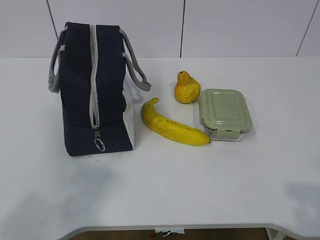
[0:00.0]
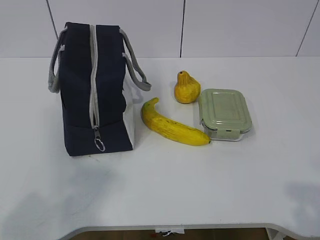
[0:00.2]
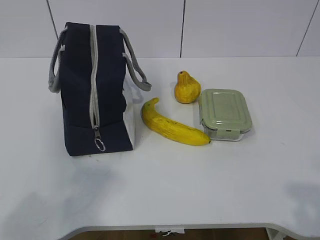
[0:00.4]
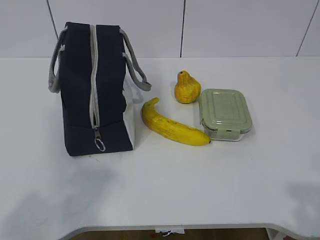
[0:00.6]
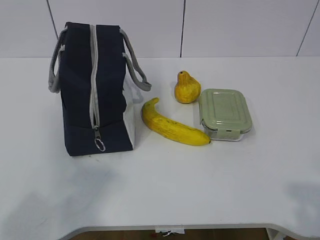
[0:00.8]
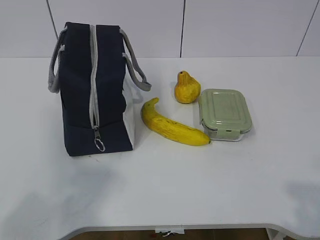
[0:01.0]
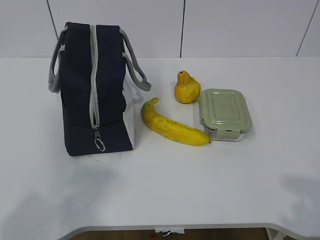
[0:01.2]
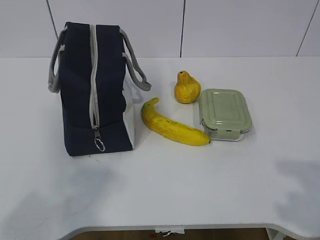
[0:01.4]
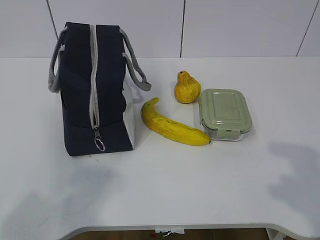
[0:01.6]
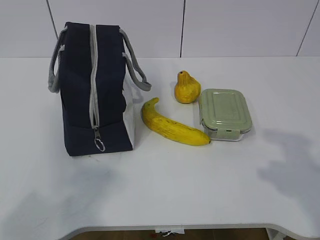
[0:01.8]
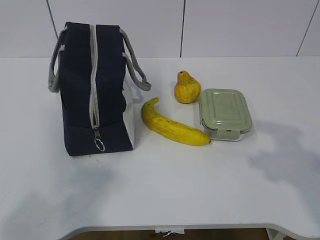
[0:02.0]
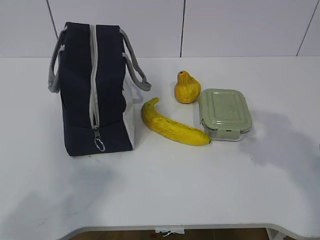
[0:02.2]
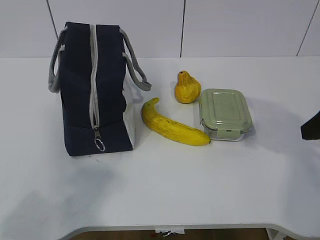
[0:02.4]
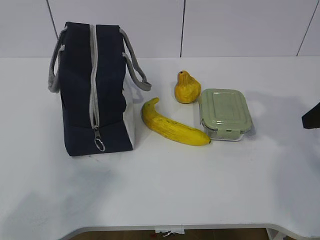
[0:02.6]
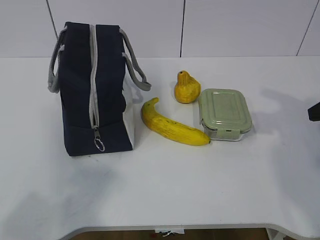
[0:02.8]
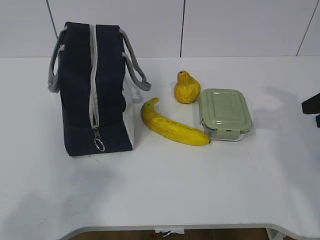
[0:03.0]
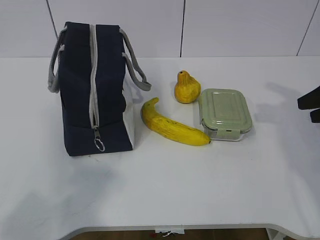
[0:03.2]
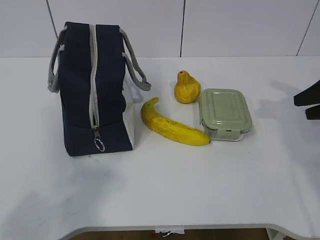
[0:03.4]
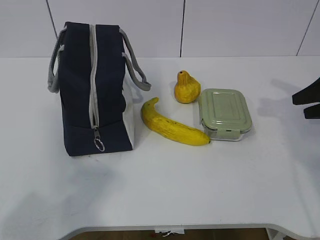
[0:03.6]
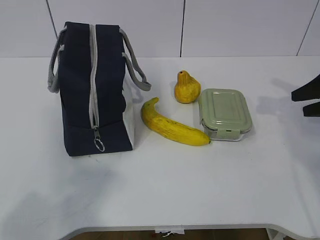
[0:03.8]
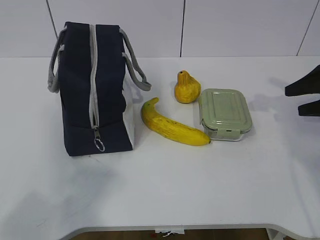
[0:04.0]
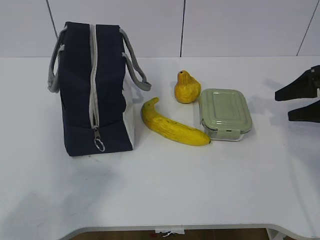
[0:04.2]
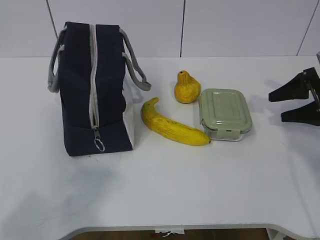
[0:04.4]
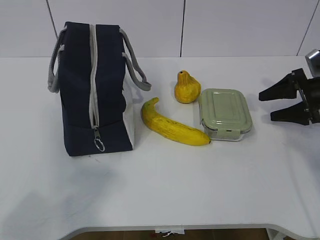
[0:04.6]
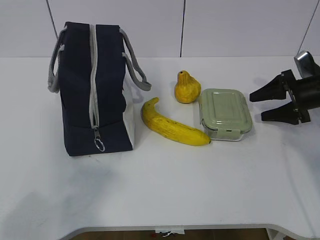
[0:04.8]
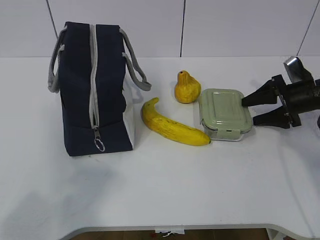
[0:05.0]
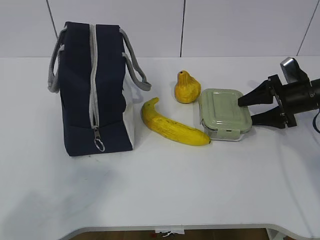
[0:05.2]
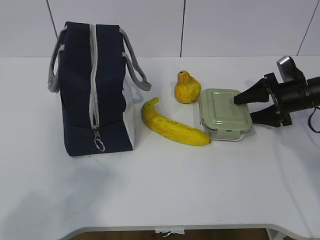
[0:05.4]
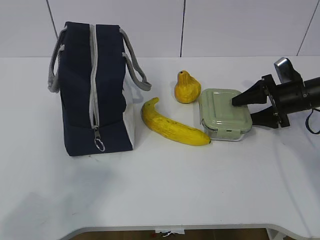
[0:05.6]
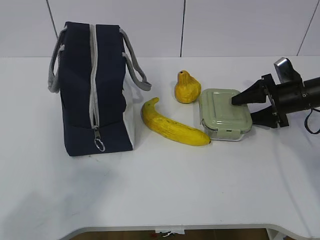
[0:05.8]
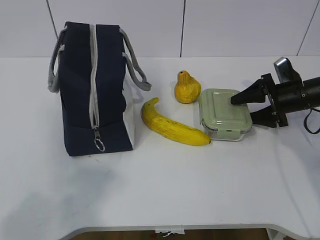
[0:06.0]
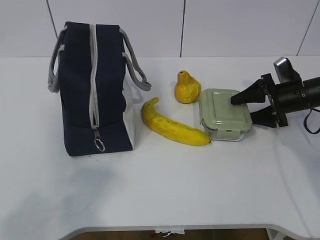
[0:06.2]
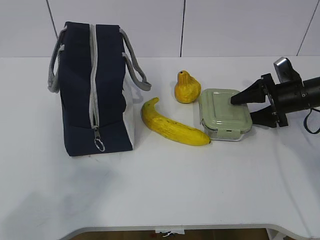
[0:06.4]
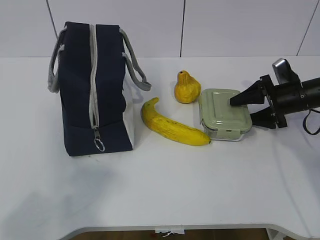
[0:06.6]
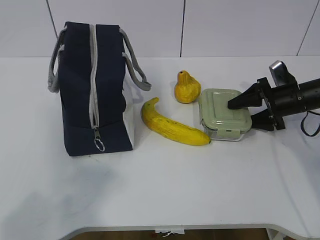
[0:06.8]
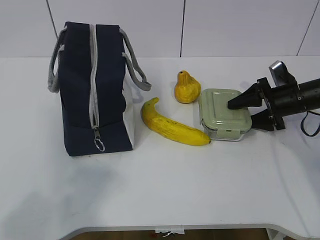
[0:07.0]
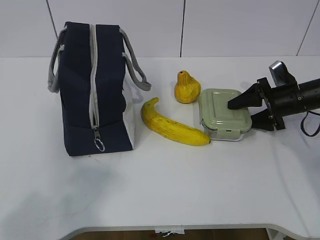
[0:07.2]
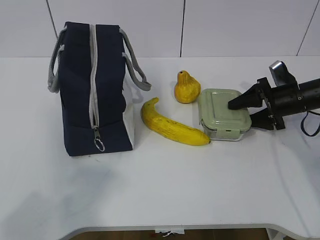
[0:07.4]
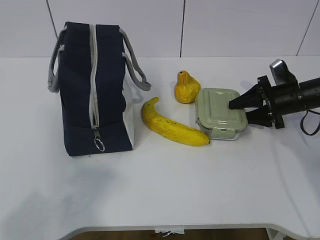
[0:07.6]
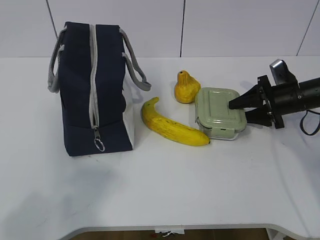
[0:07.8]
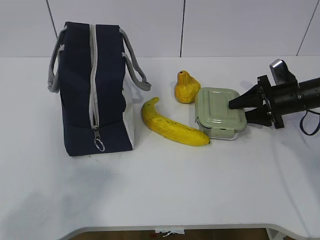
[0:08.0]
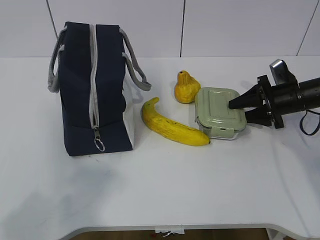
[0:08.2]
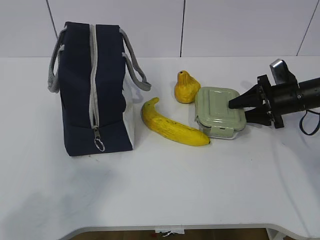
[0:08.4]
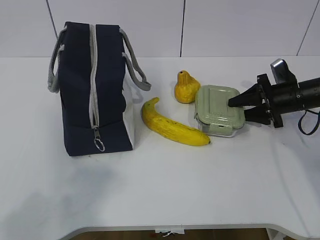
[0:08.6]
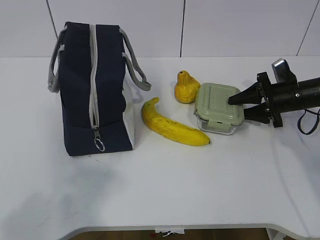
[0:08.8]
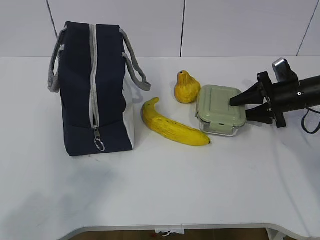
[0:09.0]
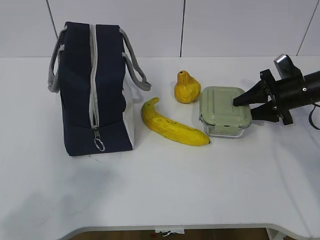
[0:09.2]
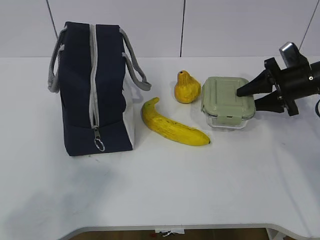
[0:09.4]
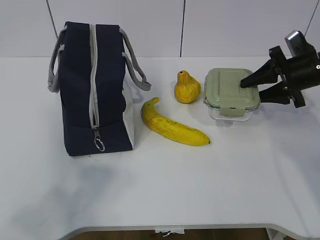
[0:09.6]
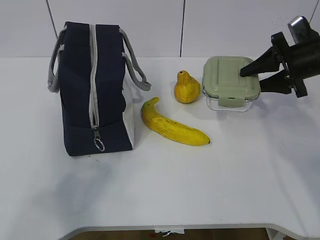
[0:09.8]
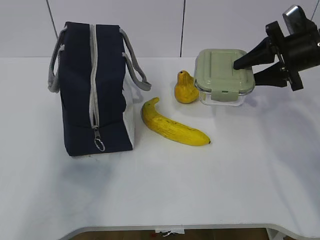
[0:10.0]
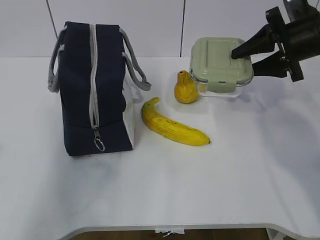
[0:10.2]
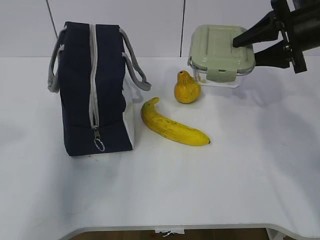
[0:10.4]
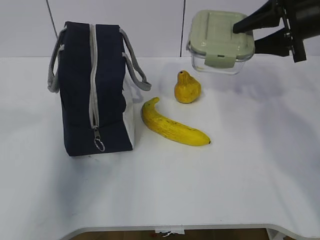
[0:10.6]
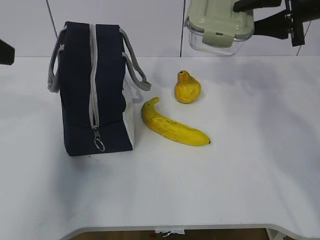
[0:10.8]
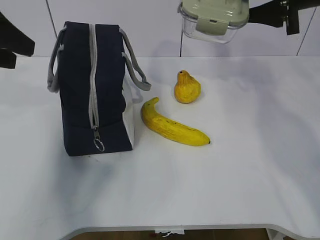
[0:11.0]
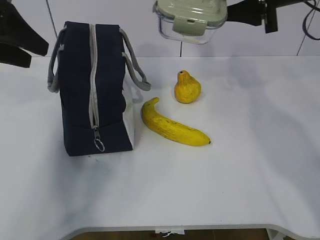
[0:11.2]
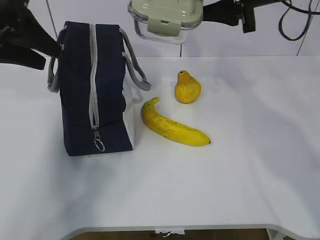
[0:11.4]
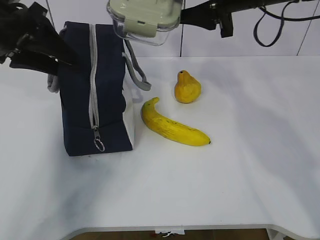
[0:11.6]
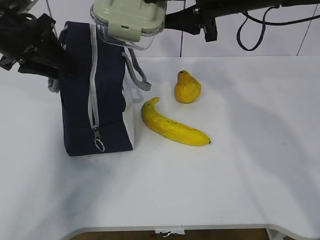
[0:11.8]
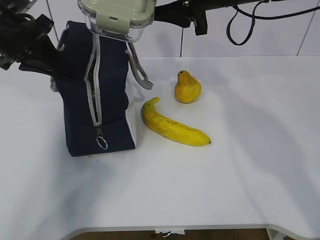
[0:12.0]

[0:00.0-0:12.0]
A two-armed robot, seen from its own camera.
Step, 0:00.0 to 0:06.8: Grab the lunch box with your right hand.
Step, 0:07.2 to 0:10.2: Grab the lunch bag with your left hand.
0:01.6 to 0:03.0: The right gripper travels forward by roughly 25 cm.
0:03.0 to 0:04.4: The right gripper goes approximately 10 cm forward and downward.
0:04.4 to 0:06.0: The right gripper travels to the left by some 5 cm.
0:06.0 to 0:07.6: Both grippers stay put.
0:07.6 to 0:09.0: The grippers make only small movements.
0:09.0 to 0:10.4: The left gripper shifts roughly 15 cm forward and upward. The right gripper is displaced upward by approximately 15 cm.
0:10.4 to 0:12.0: The right gripper heads to the left, covering roughly 15 cm; the left gripper travels forward by approximately 25 cm, and closes up.

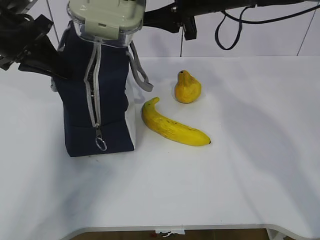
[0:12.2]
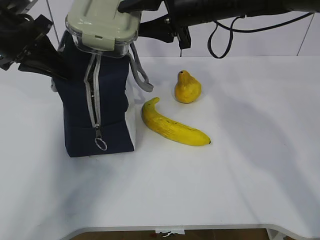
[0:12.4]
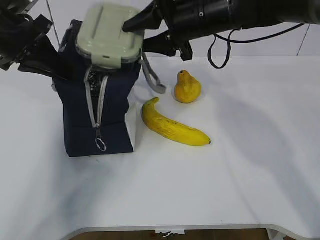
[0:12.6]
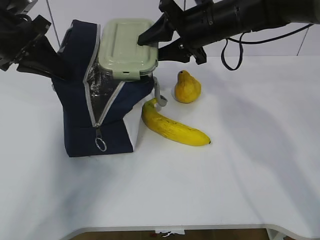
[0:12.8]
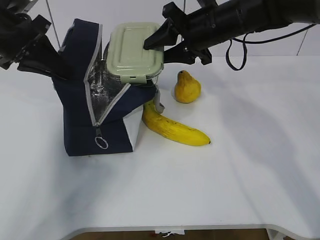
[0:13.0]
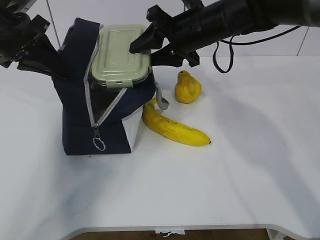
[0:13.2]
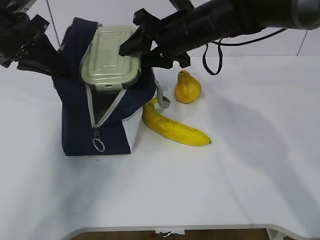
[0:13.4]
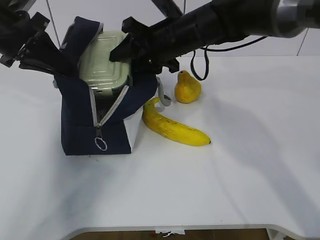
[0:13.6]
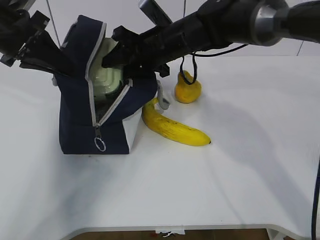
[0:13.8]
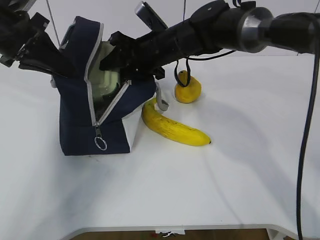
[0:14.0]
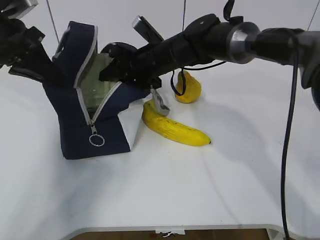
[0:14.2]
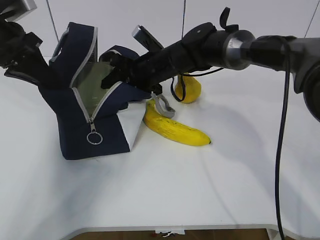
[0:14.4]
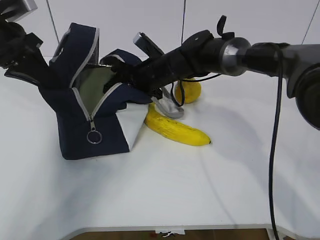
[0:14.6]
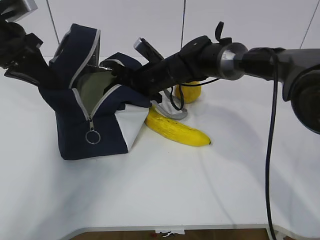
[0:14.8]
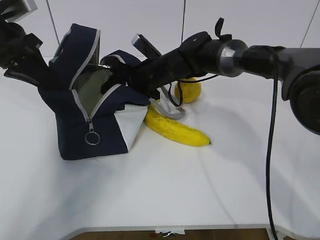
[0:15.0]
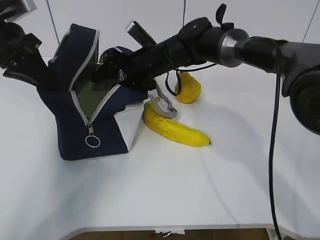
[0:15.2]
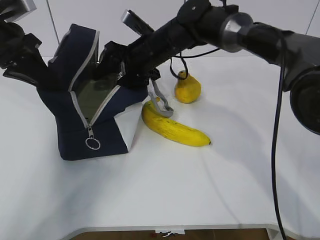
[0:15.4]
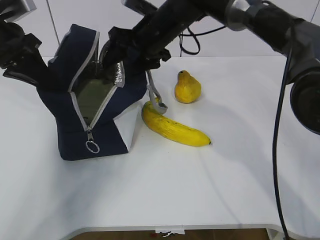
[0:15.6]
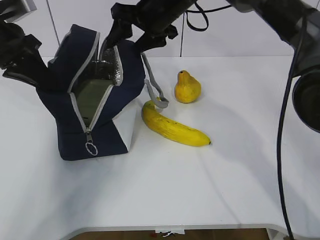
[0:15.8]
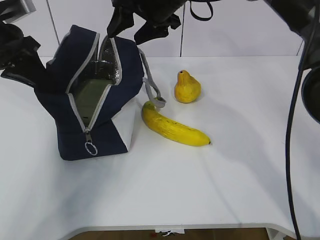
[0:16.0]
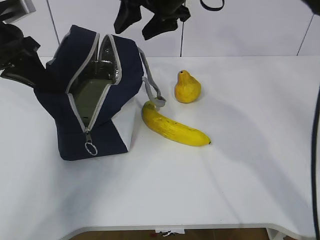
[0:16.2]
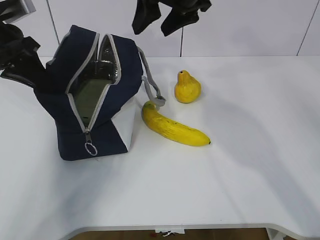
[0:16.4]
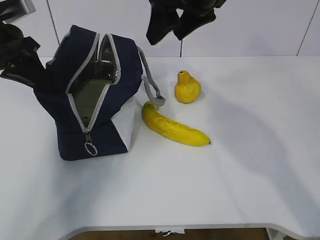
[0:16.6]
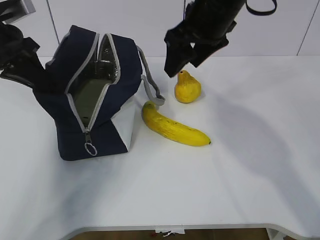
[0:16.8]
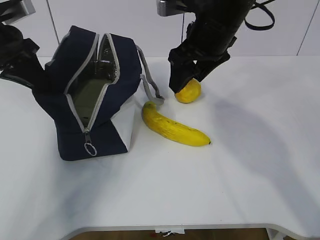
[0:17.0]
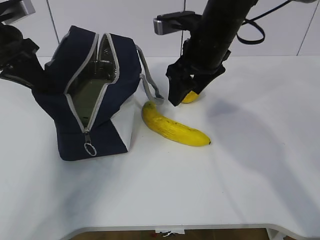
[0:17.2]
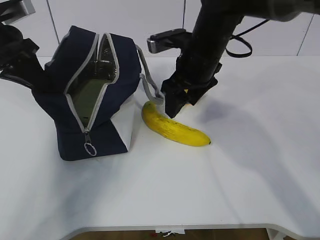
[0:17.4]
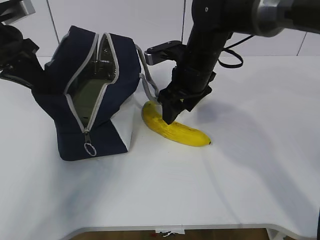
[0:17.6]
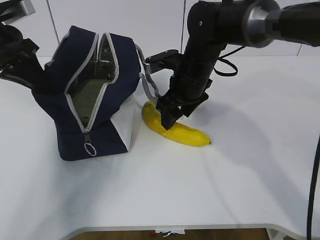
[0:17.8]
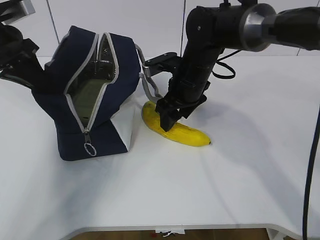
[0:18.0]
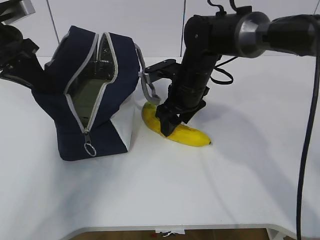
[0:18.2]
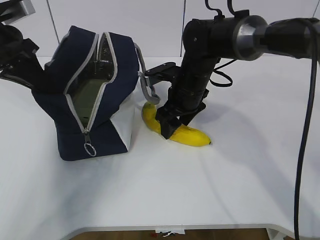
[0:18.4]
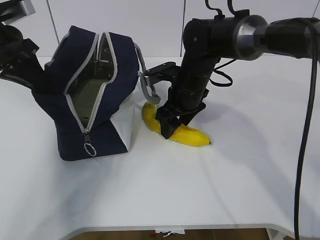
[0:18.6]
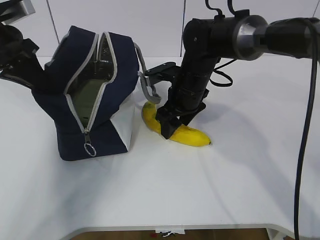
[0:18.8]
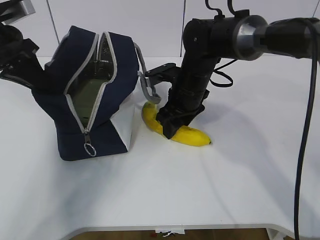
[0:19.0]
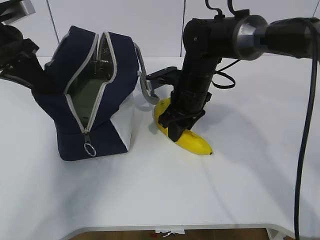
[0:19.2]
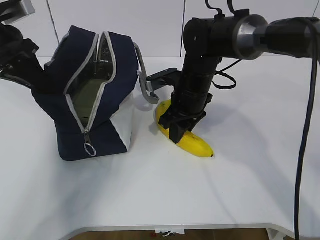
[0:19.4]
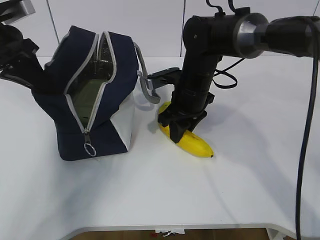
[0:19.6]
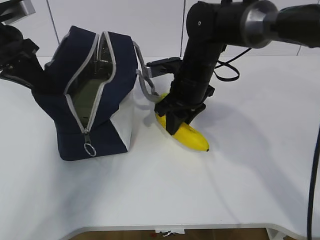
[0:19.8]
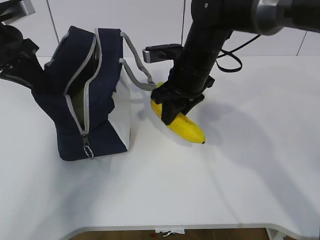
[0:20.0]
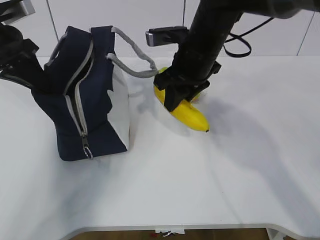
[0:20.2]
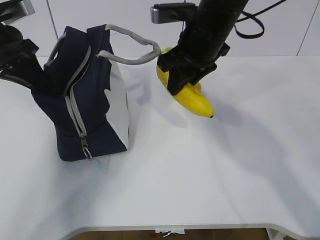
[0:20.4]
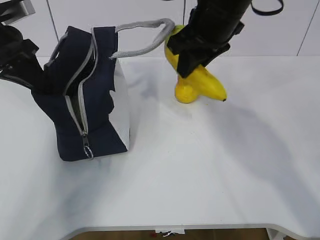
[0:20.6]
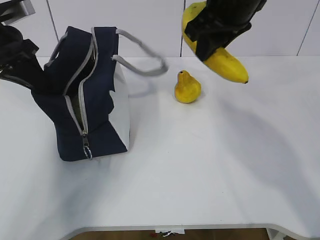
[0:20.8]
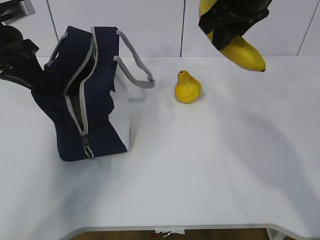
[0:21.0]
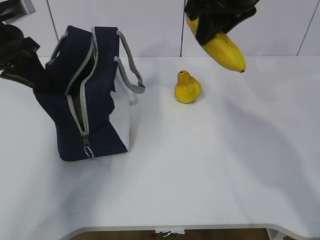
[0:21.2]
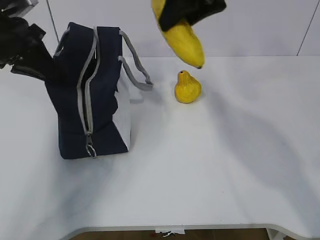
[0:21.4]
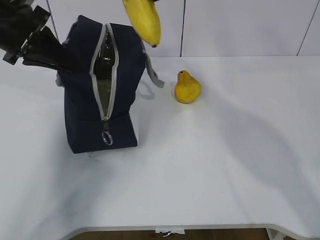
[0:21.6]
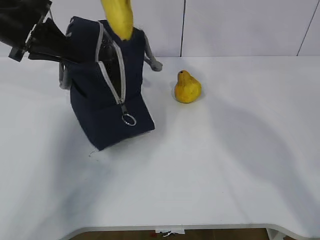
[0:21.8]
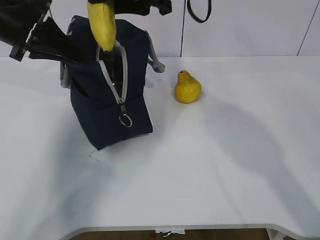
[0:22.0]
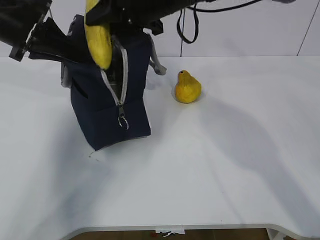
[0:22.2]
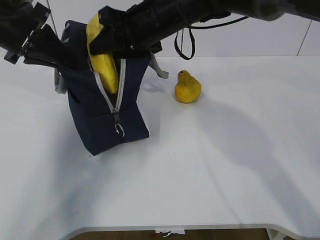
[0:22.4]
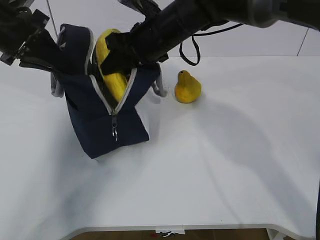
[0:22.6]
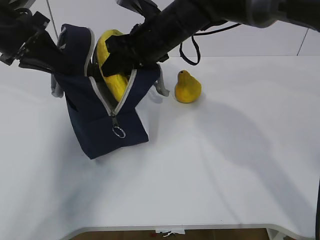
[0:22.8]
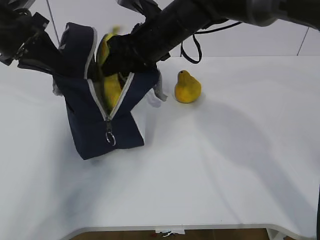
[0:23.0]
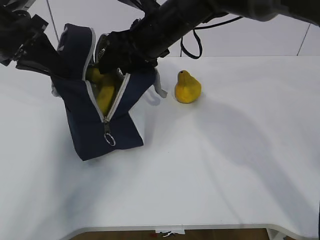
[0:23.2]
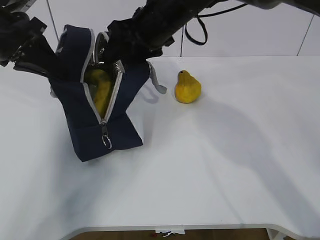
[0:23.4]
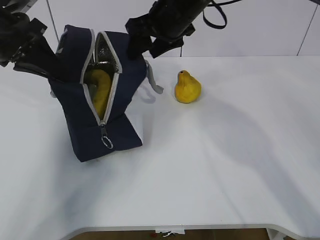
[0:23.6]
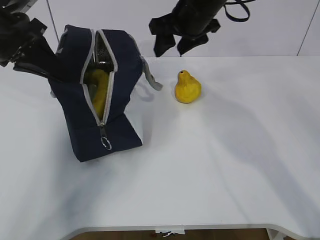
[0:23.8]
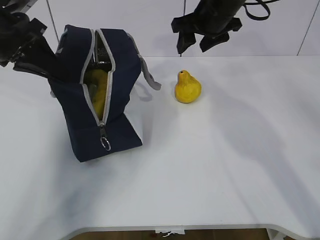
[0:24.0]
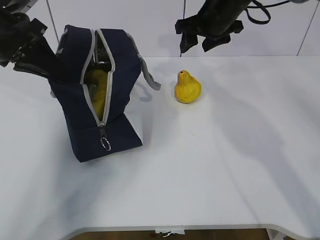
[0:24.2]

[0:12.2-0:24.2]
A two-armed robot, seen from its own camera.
Step, 0:12.8 to 0:16.0: Grab the banana with your right hand.
Step, 0:16.2 to 0:19.4: Place it into the bag with your right hand.
Step, 0:19.6 to 0:22.0: Grab the pear with your right hand.
0:12.2 to 0:13.8: The right gripper goes about 10 cm downward and to the left.
0:13.8 to 0:15.2: The right gripper goes some 5 cm downward.
0:15.2 to 0:16.6: The right gripper travels upward, backward and to the right by about 20 cm.
0:16.6 to 0:18.2: The right gripper shifts some 20 cm downward.
0:18.2 to 0:19.8: The right gripper closes up.
0:19.8 to 0:21.2: The right gripper moves upward, about 20 cm.
0:21.2 to 0:22.6: The right gripper goes about 15 cm downward, to the left and forward.
0:22.6 to 0:24.2: The right gripper shifts some 15 cm to the right and forward, and opens.
